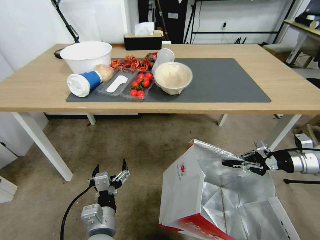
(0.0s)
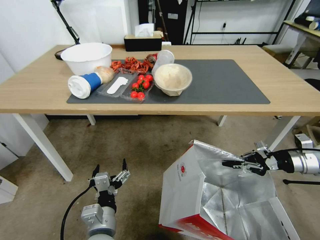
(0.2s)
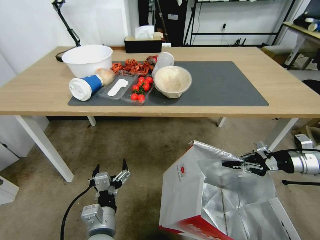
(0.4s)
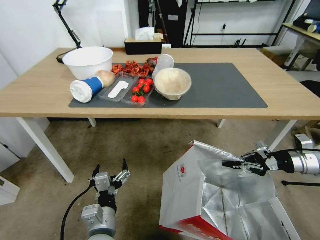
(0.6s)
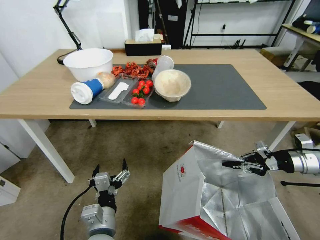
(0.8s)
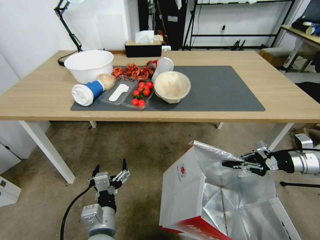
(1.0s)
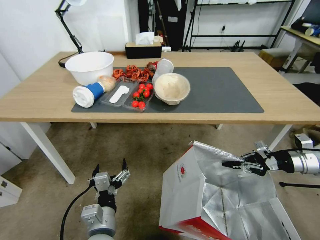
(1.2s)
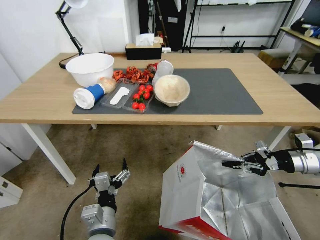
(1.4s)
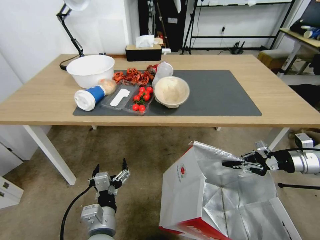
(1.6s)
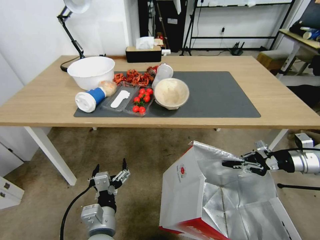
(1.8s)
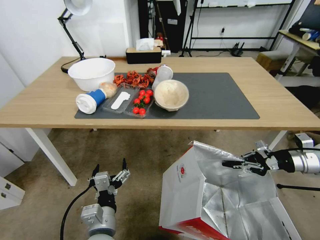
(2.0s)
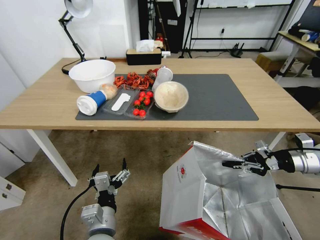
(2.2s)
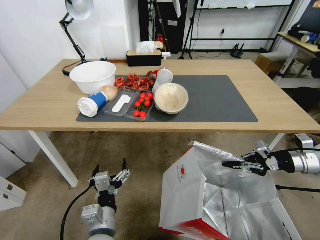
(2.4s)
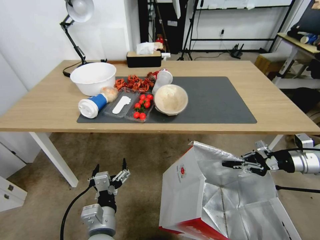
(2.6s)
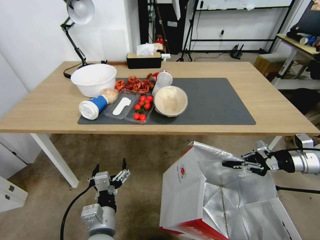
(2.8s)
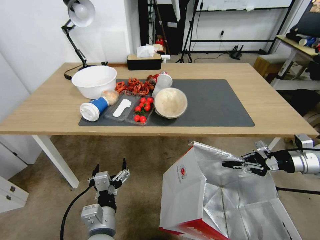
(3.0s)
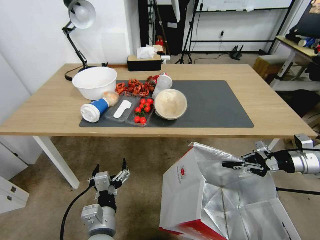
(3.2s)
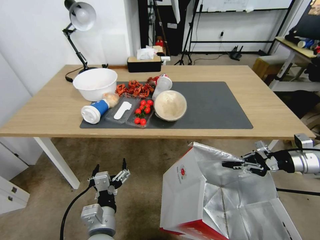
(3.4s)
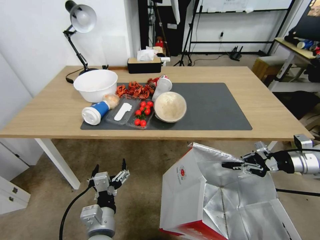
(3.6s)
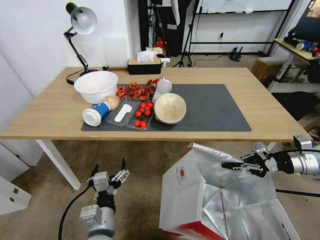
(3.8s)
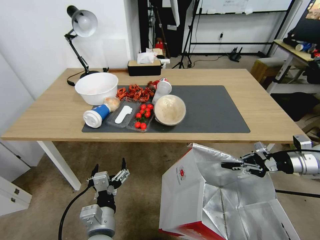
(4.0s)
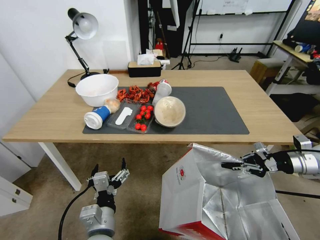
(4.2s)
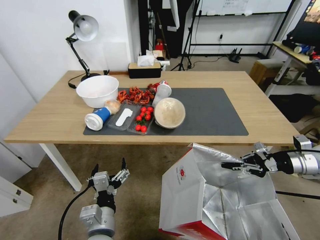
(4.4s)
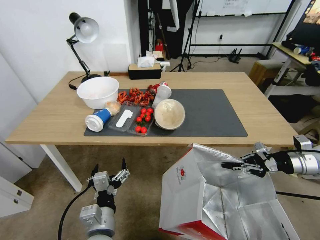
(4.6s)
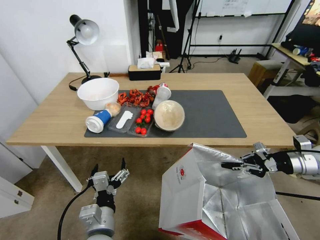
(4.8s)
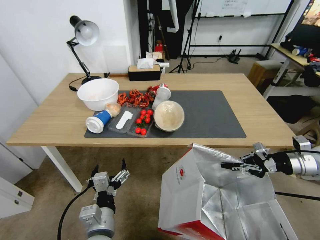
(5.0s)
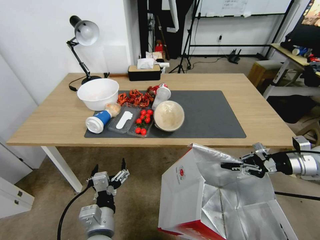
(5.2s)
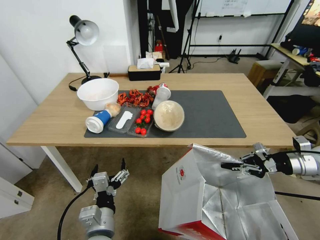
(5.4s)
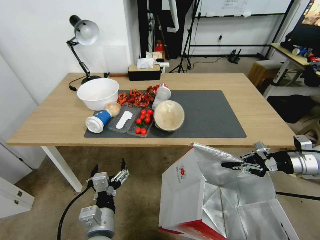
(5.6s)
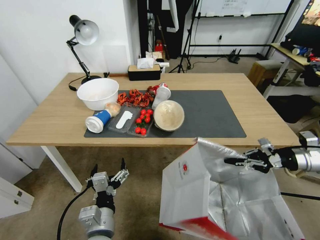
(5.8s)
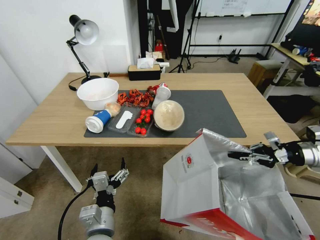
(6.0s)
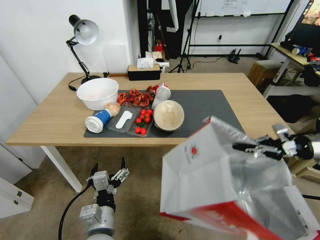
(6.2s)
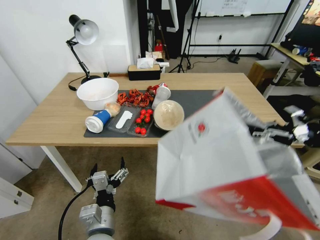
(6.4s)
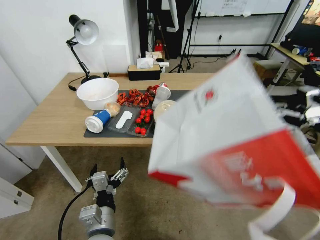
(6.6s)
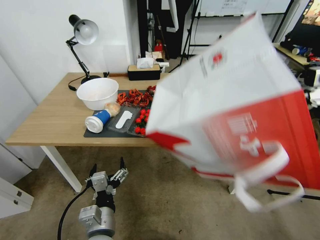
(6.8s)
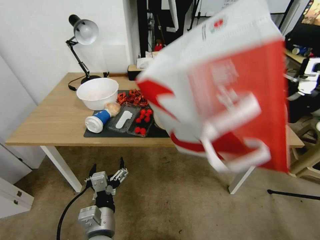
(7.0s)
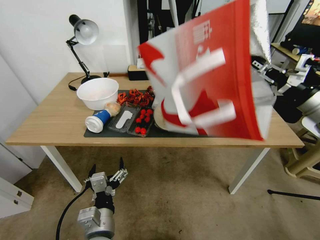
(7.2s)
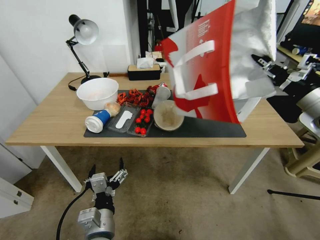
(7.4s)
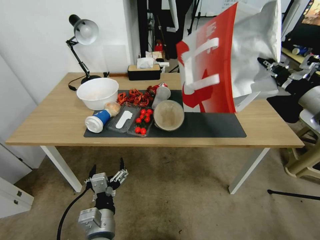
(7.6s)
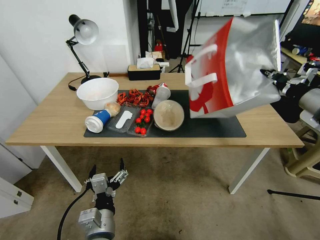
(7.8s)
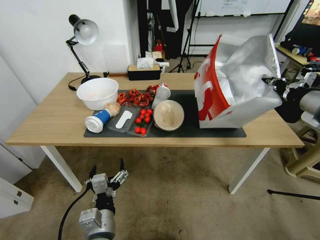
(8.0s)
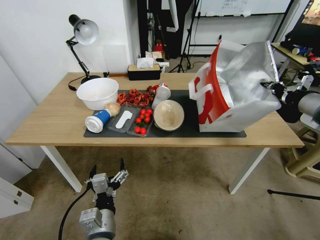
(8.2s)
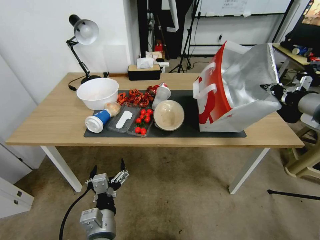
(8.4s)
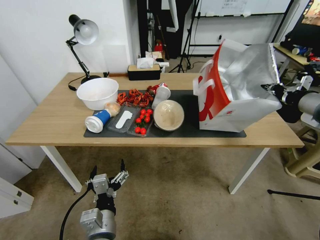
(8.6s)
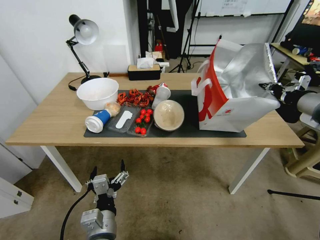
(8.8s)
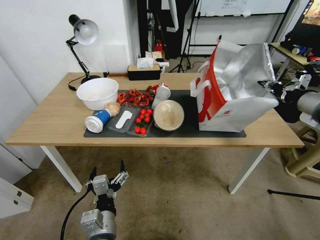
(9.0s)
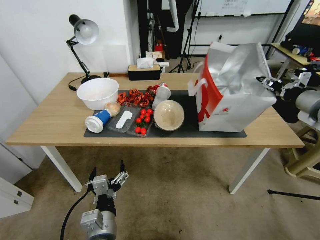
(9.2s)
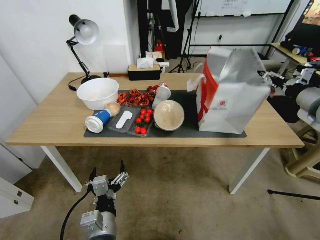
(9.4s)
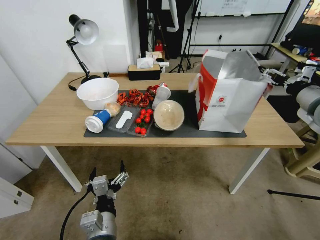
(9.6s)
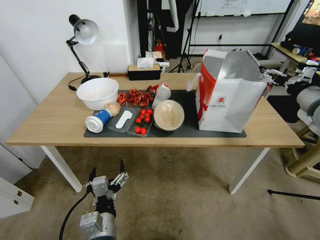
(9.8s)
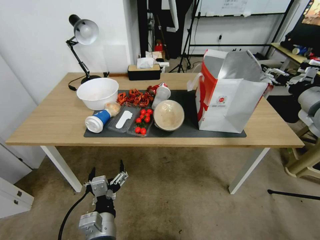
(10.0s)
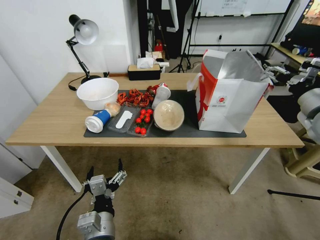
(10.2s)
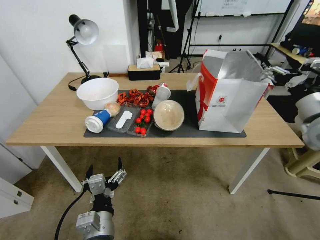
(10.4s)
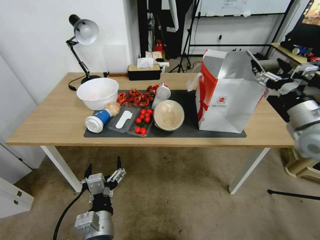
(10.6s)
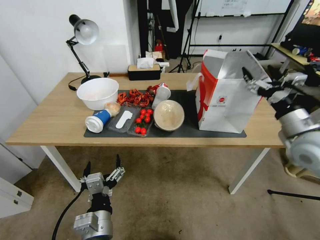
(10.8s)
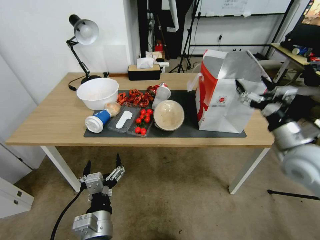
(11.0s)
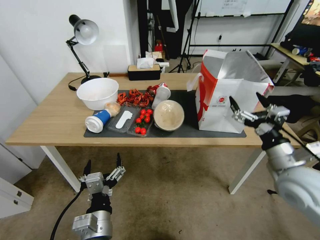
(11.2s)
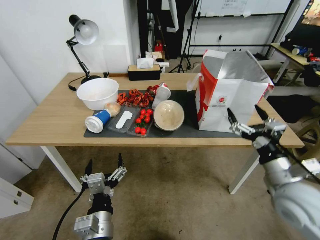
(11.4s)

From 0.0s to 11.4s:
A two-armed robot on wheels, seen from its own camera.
Task of the whole recording: Pick up the food delivery bag from the floor and place it on the table.
From 4.2s to 5.6s: The two grippers keep their place.
From 5.6s to 7.2s: The right gripper shifts about 15 cm upward and to the left.
From 8.6s to 10.0s: The right gripper opens up.
From 10.0s to 11.4s: The right gripper goes approximately 25 cm downward, backward and to the left.

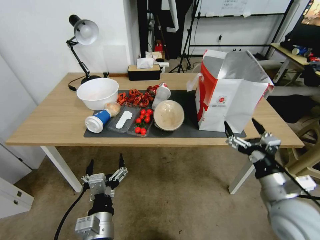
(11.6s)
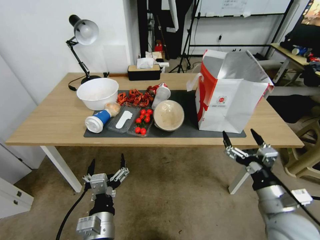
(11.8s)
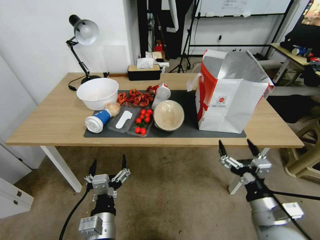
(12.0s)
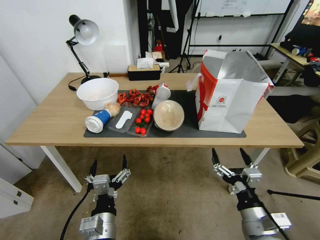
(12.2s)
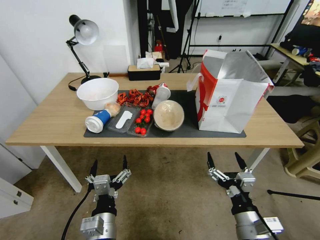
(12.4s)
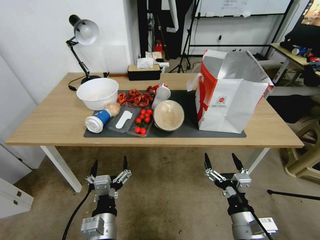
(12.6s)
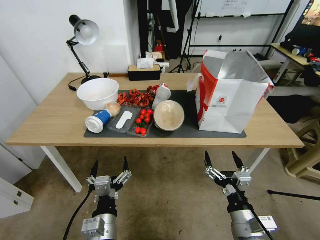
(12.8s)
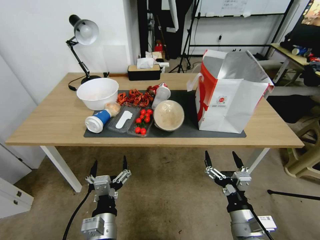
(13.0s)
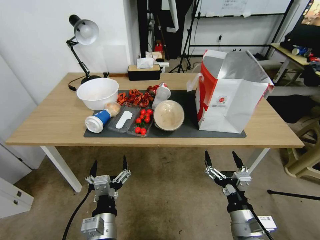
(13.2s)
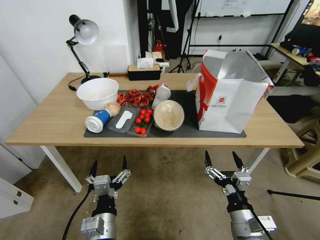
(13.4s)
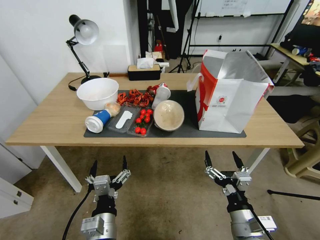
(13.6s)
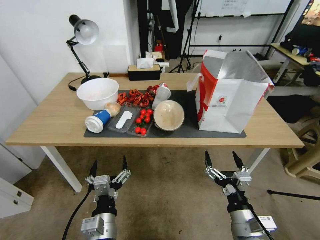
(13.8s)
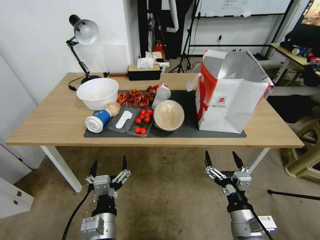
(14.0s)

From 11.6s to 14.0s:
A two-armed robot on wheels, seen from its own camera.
Task of the whole recording: Pick up the food delivery bag from the floor and place it on the table.
From 11.6s to 12.8s: The right gripper heads to the left, downward and backward, covering some 10 cm.
From 12.8s to 14.0s: The two grippers keep their place.

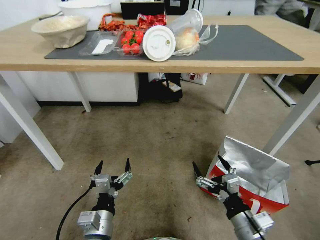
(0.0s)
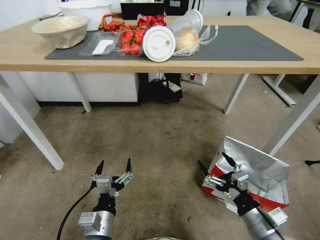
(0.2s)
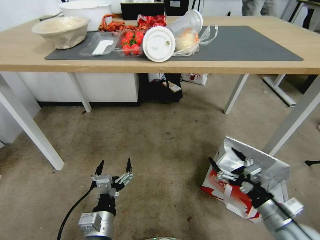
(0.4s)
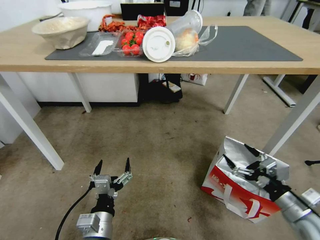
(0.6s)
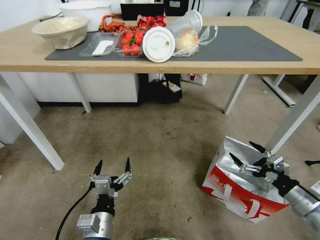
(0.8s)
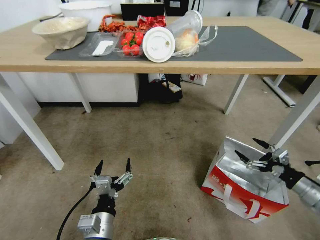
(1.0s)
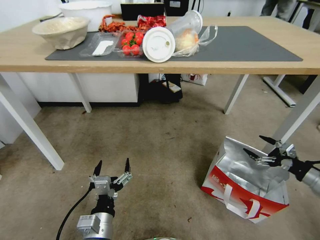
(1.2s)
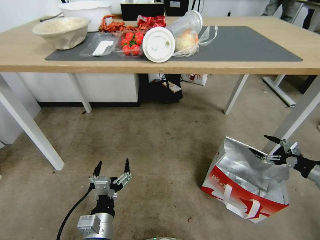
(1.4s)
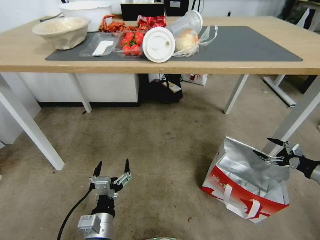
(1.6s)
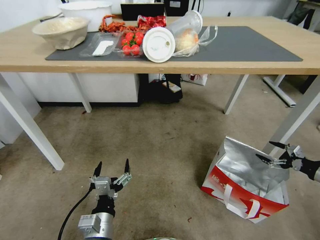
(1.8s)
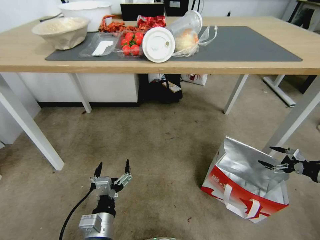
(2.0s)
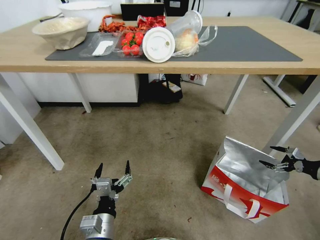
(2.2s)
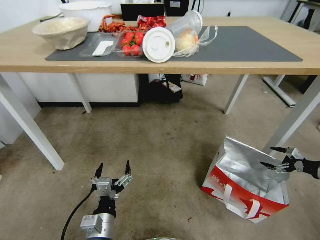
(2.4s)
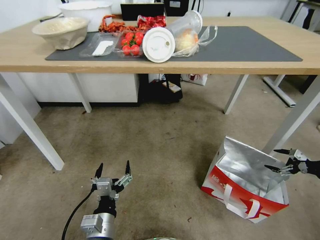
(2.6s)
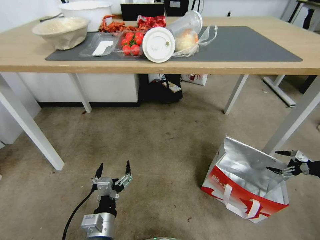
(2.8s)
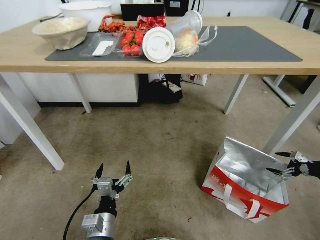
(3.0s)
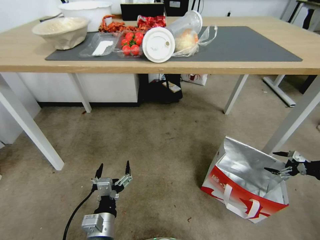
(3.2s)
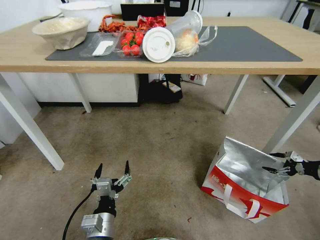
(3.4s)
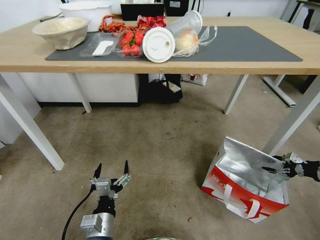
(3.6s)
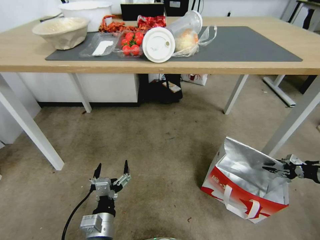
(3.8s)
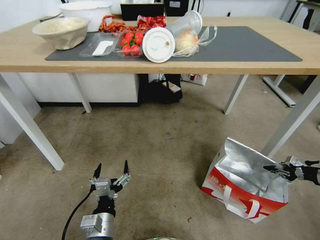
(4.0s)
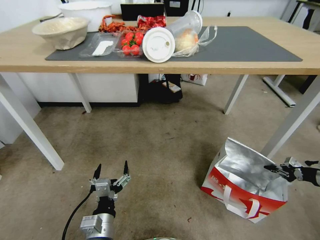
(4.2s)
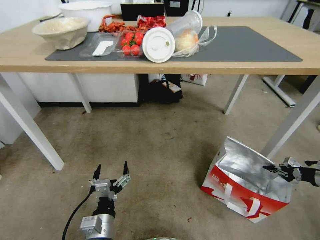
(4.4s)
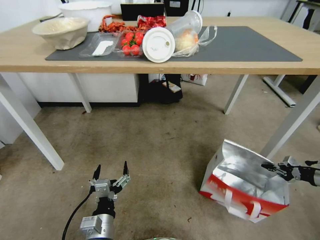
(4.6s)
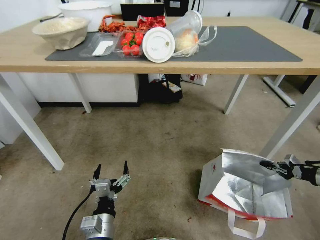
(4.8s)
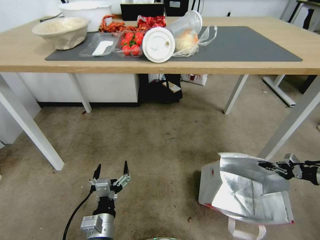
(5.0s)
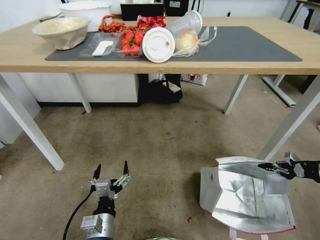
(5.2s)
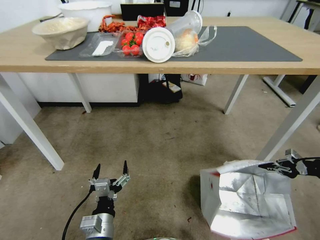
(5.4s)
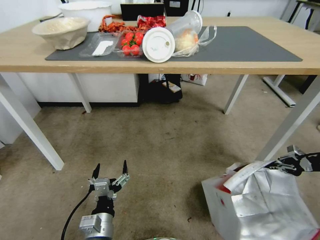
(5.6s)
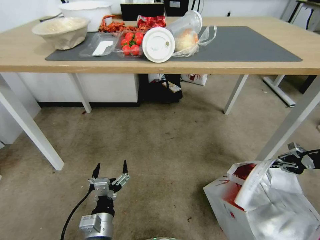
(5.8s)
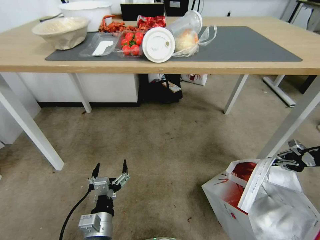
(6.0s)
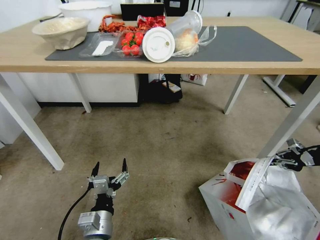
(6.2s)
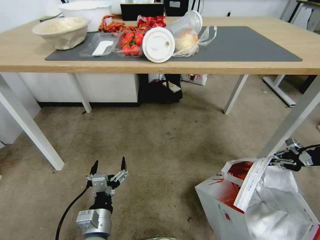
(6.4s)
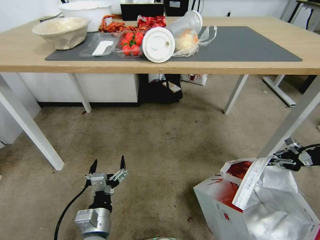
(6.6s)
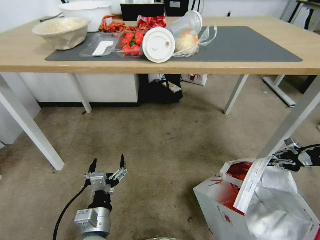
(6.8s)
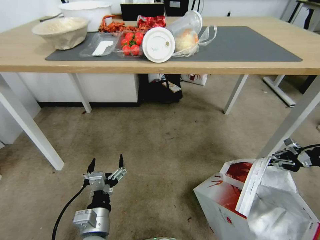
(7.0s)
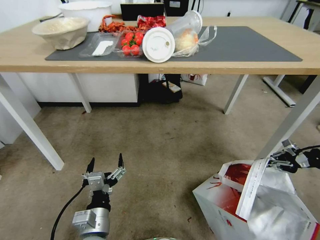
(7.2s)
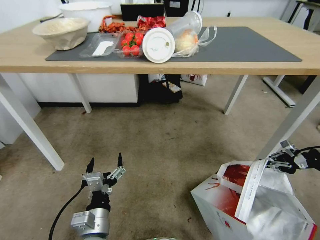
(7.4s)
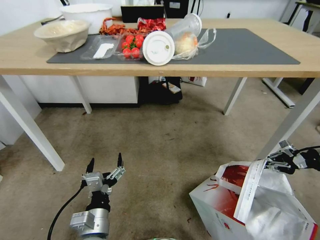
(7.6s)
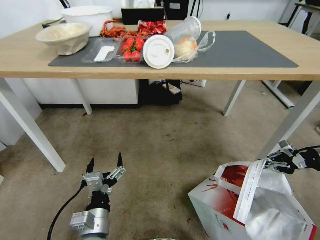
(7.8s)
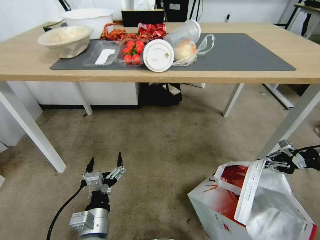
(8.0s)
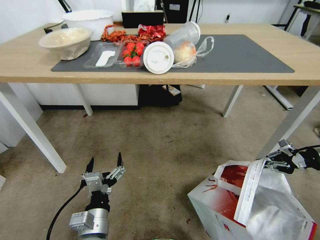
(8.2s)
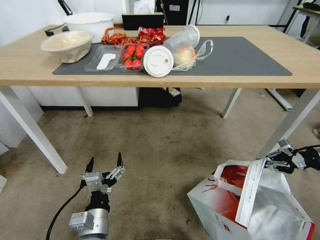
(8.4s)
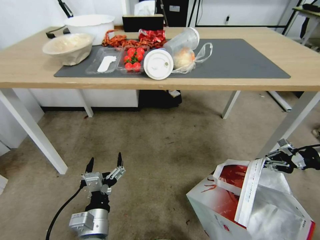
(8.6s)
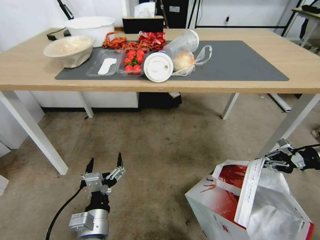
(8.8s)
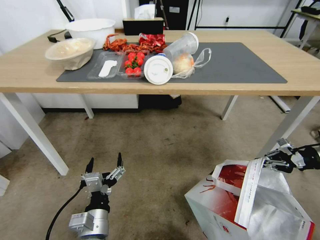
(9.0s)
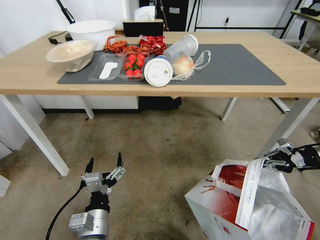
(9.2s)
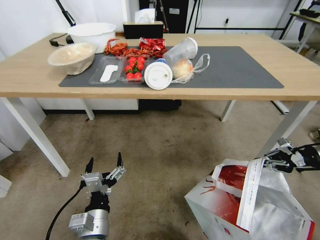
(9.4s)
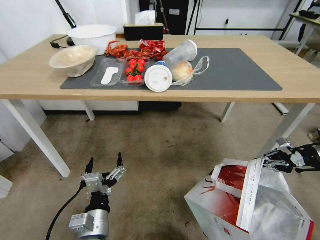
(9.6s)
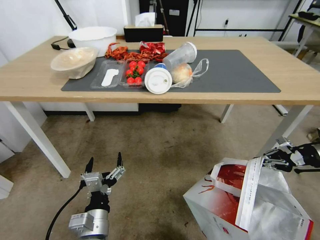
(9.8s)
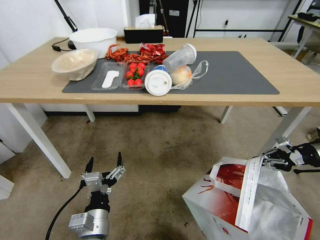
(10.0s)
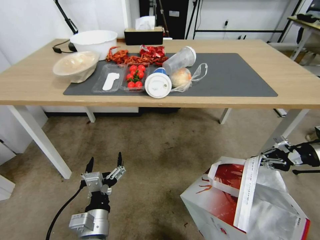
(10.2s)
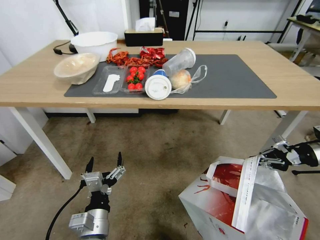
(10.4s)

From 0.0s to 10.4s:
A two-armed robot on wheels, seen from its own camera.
Task of the whole recording: Pick up the food delivery bag from the floor and place it on the table.
From 0.0s to 1.4s: The right gripper moves to the right and forward, some 35 cm.
From 1.4s to 3.0s: The right gripper is displaced to the right by roughly 10 cm.
From 3.0s to 4.4s: The right gripper closes.
From 4.4s to 6.0s: The right gripper travels upward by some 15 cm.
From 6.0s to 7.4s: There are only small adjustments of the grippers.
